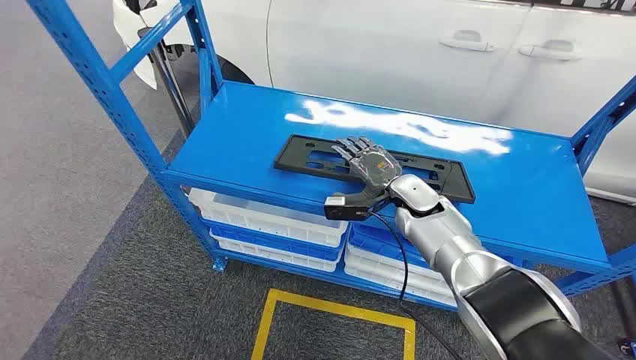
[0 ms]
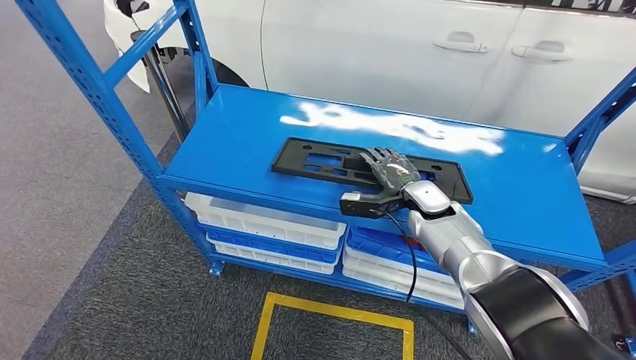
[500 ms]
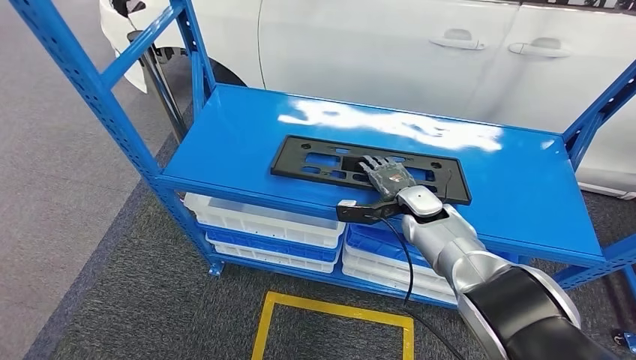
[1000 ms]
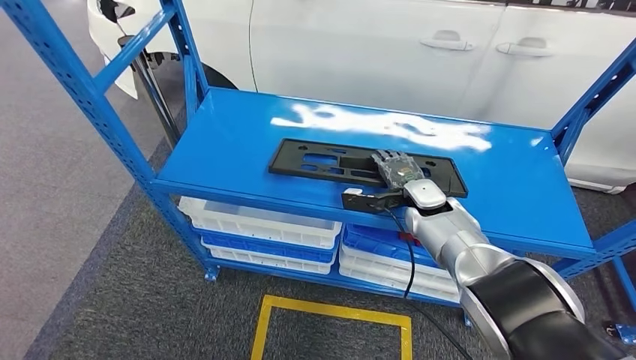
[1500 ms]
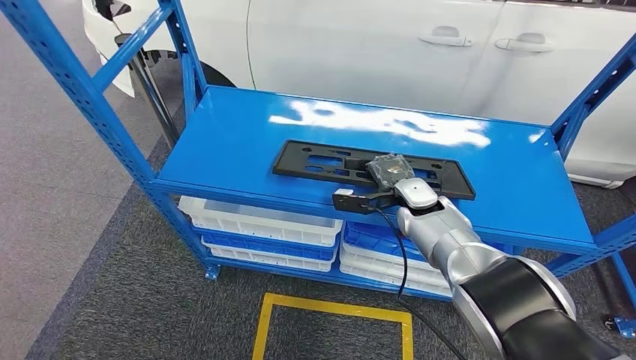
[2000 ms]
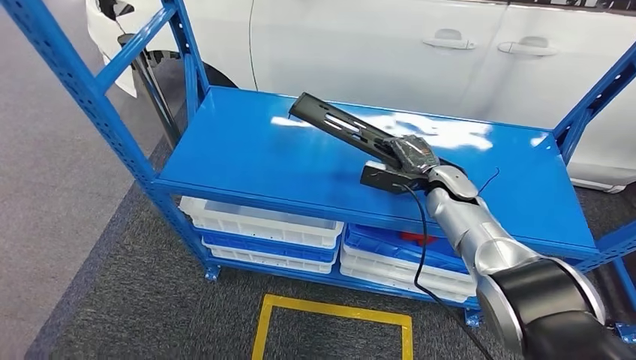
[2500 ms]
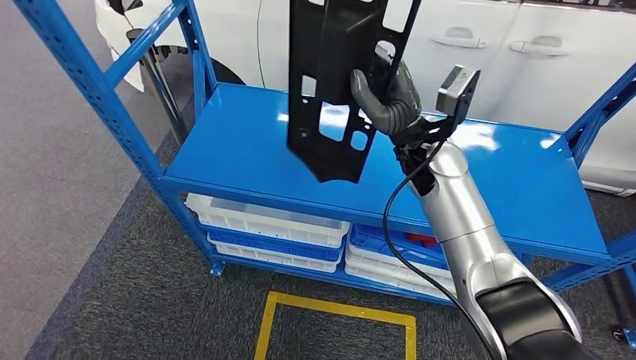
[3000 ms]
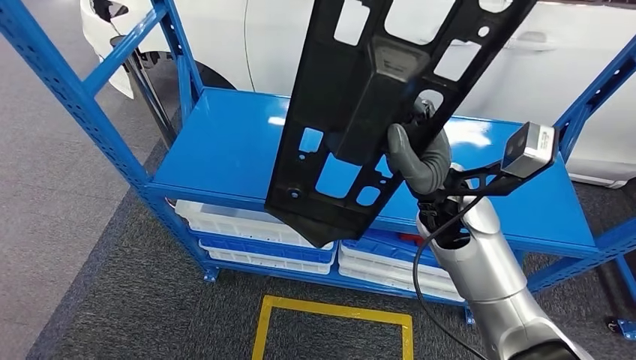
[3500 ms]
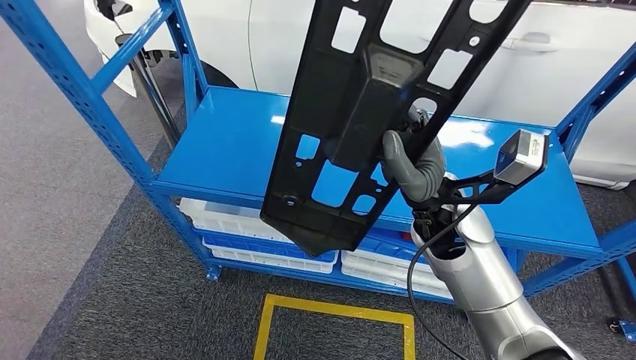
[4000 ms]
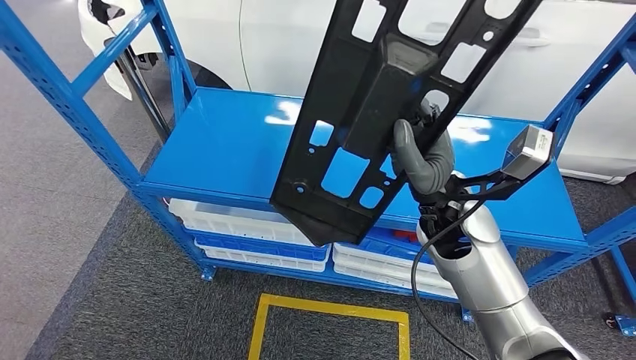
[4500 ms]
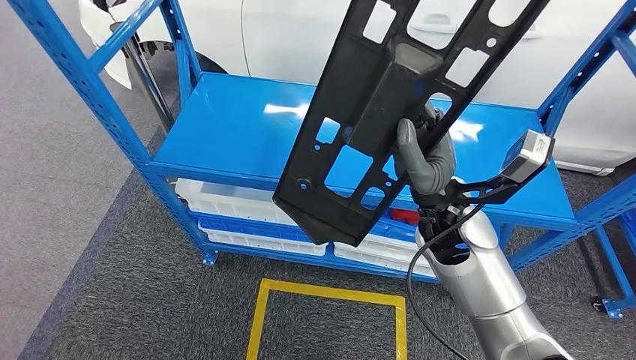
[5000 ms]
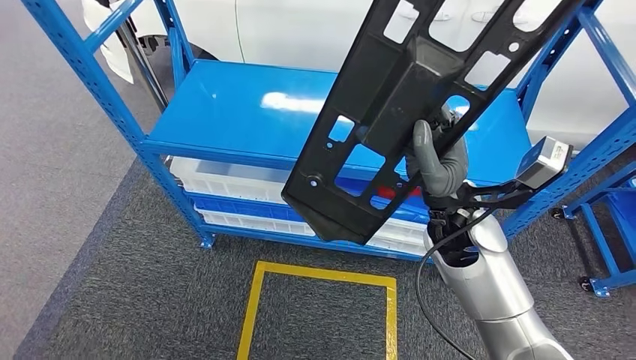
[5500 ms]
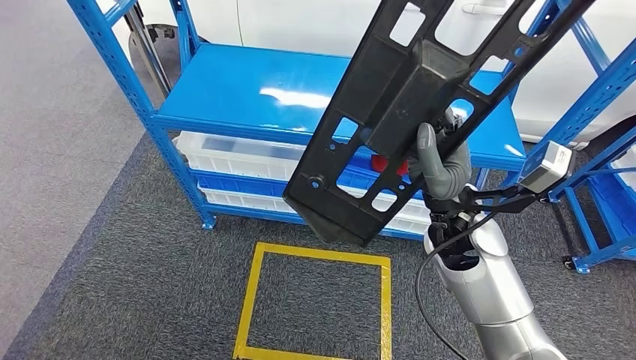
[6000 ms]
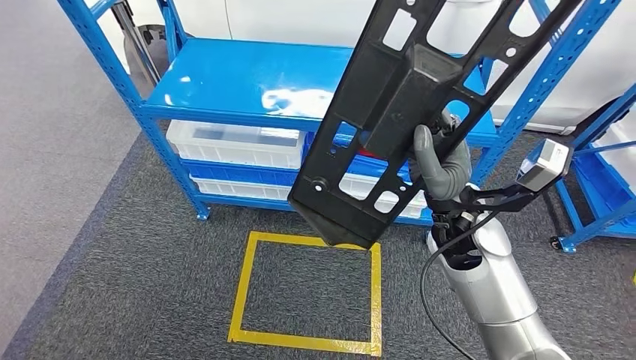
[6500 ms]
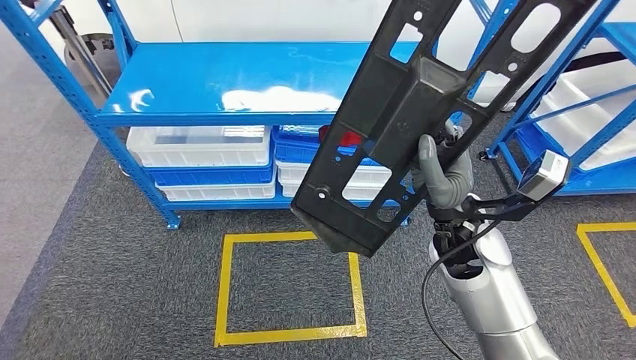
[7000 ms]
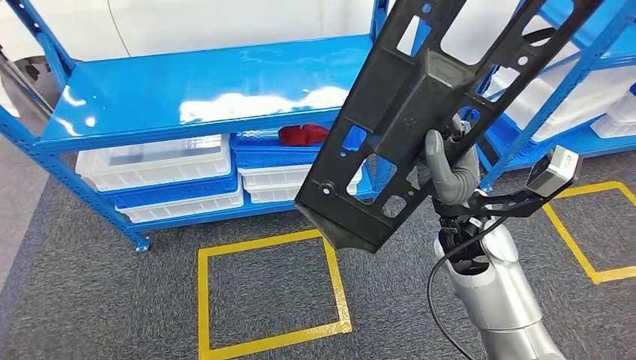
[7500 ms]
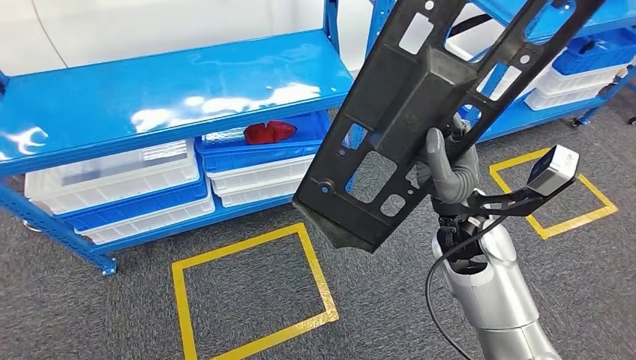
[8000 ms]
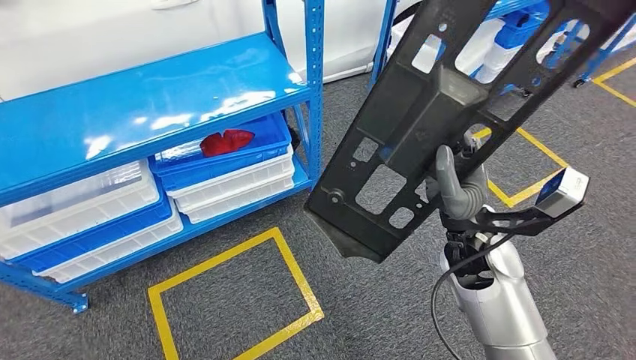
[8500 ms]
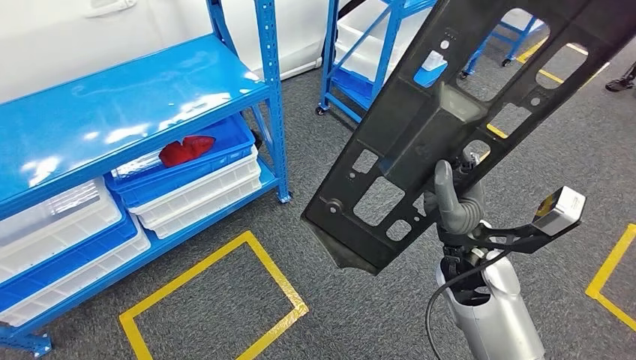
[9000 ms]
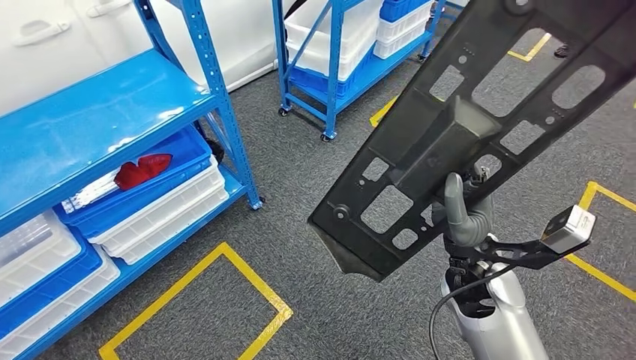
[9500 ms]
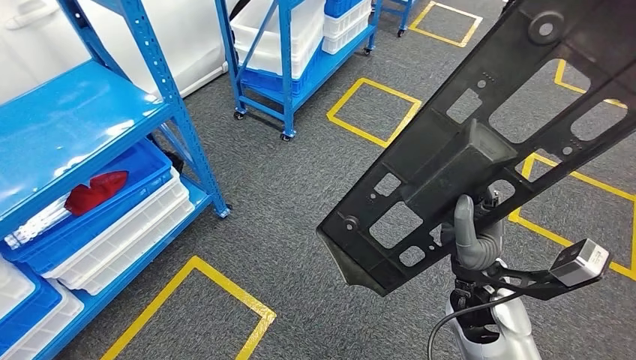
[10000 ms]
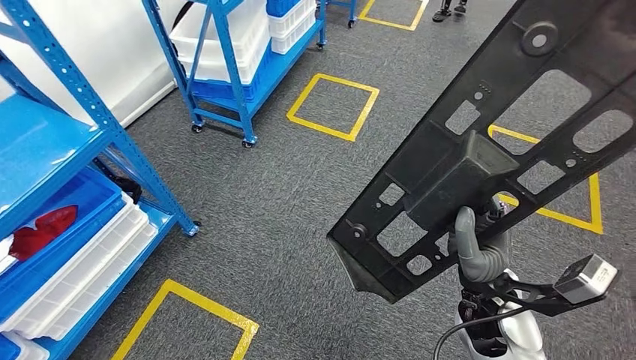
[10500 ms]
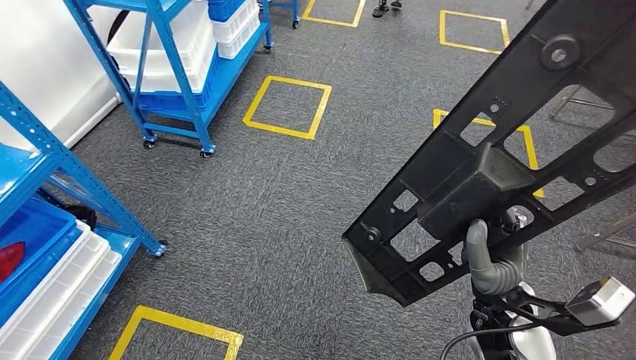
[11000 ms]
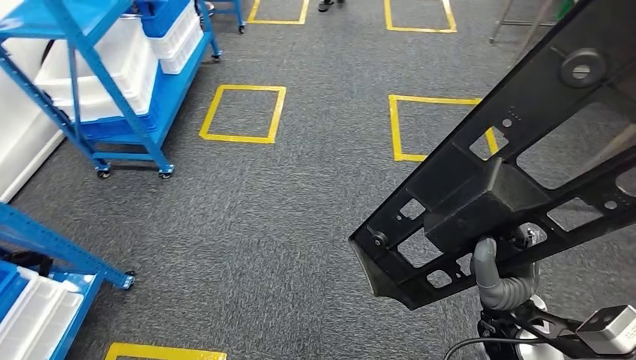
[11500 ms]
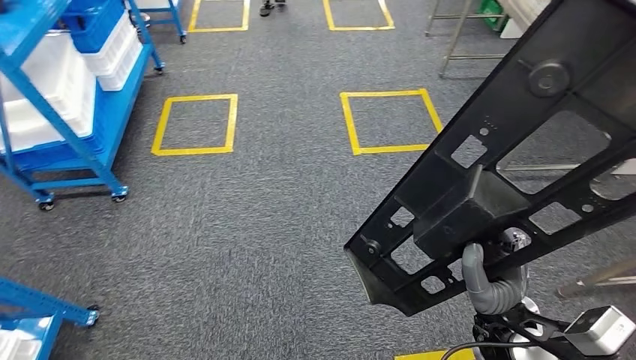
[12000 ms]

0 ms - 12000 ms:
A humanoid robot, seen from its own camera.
Step, 0 ms - 3000 ms: Pick up the large material from the shelf.

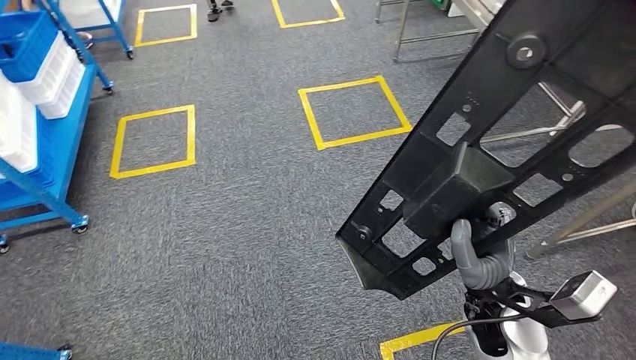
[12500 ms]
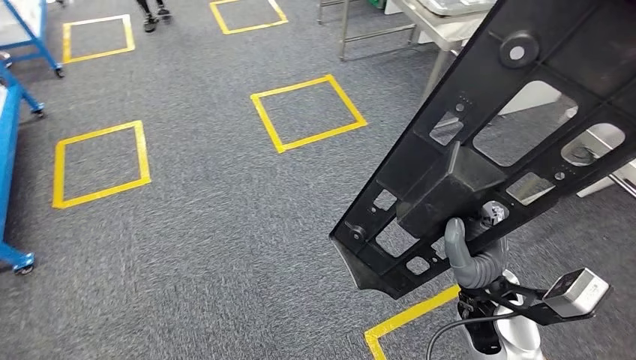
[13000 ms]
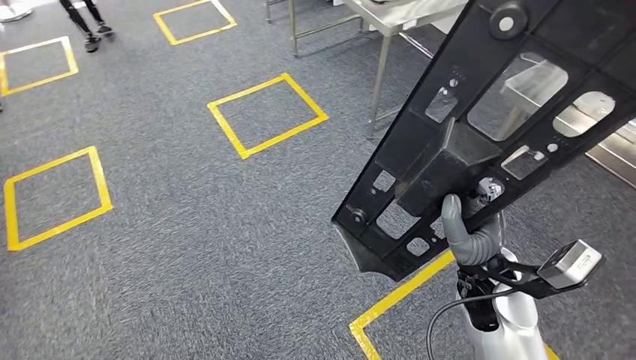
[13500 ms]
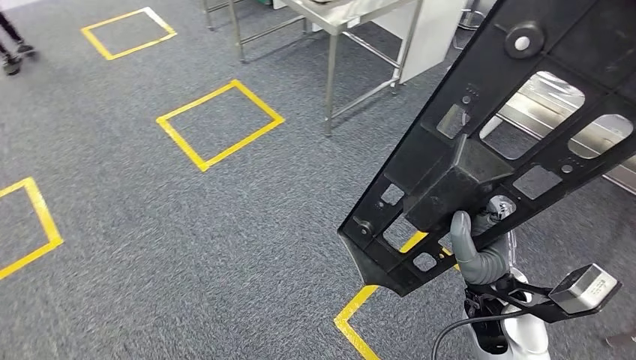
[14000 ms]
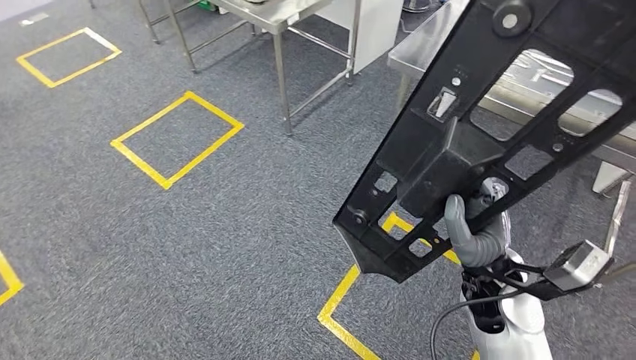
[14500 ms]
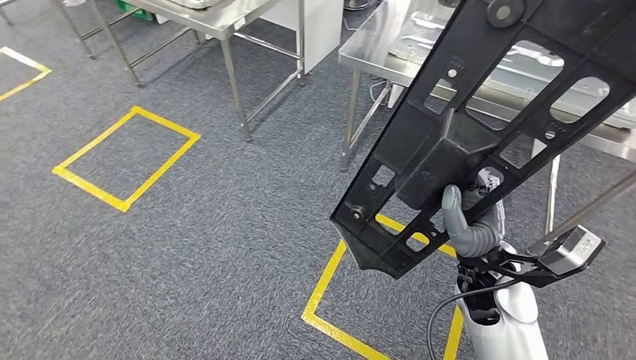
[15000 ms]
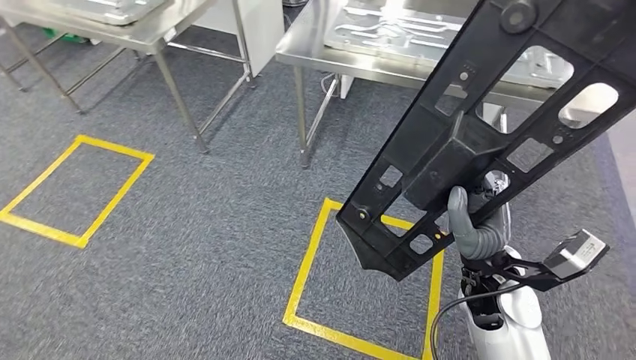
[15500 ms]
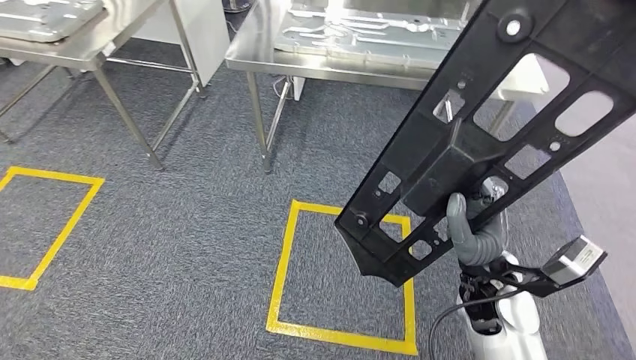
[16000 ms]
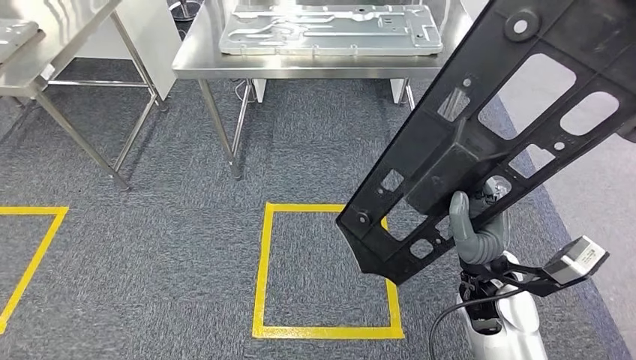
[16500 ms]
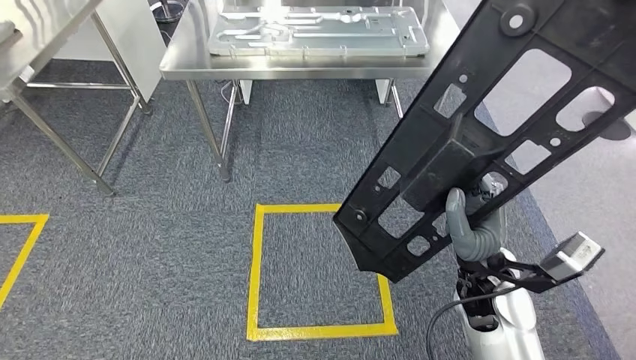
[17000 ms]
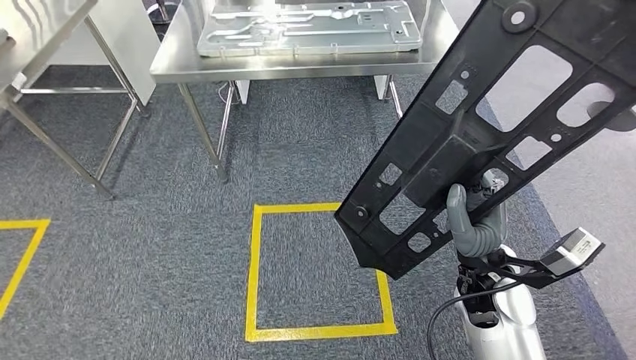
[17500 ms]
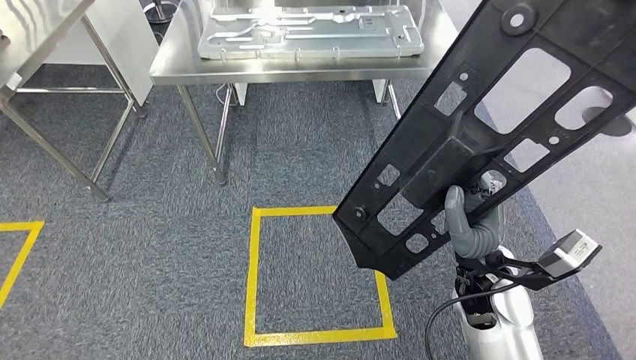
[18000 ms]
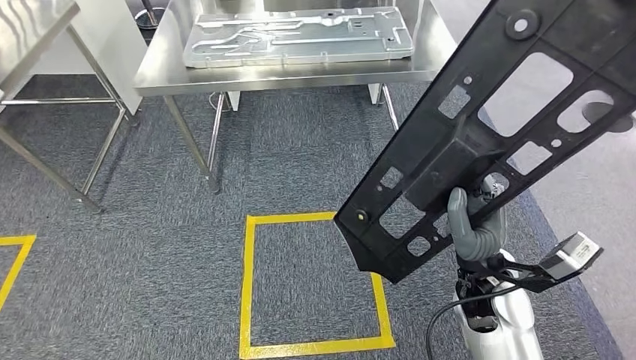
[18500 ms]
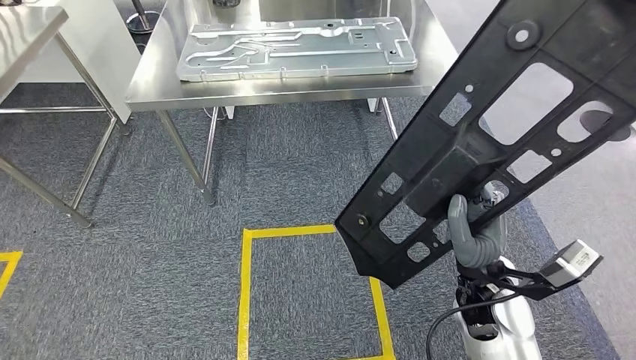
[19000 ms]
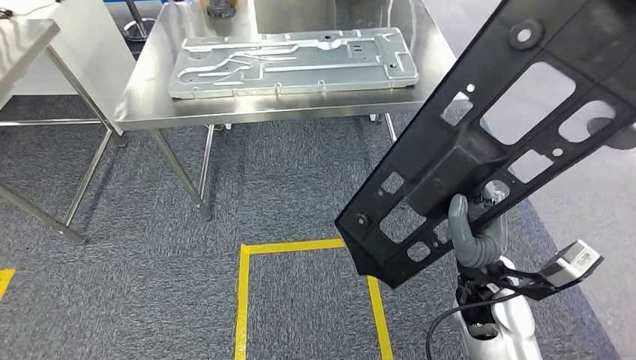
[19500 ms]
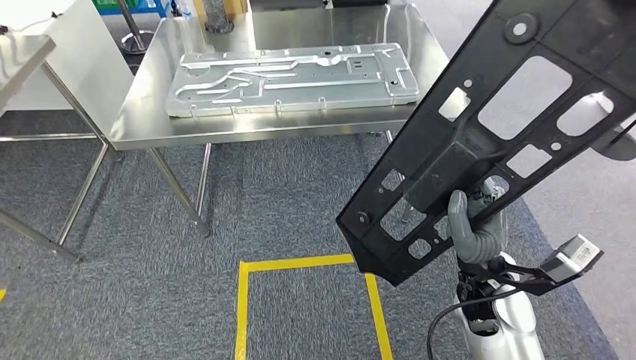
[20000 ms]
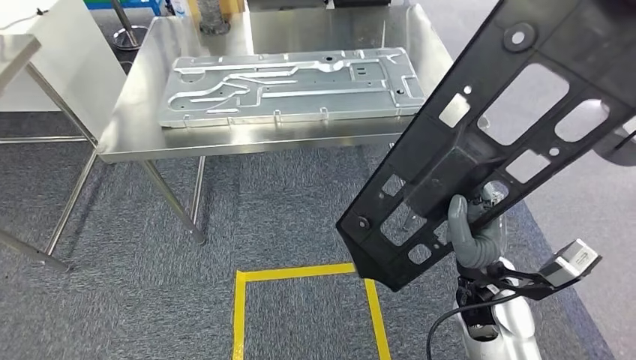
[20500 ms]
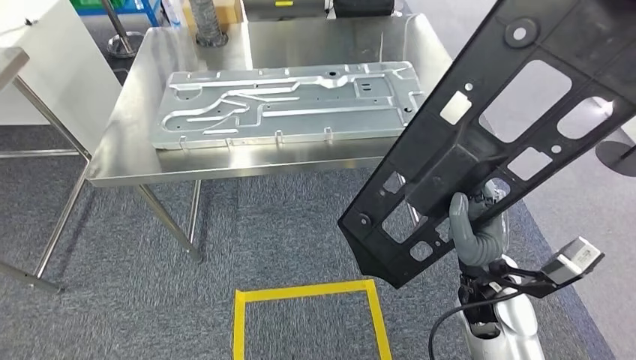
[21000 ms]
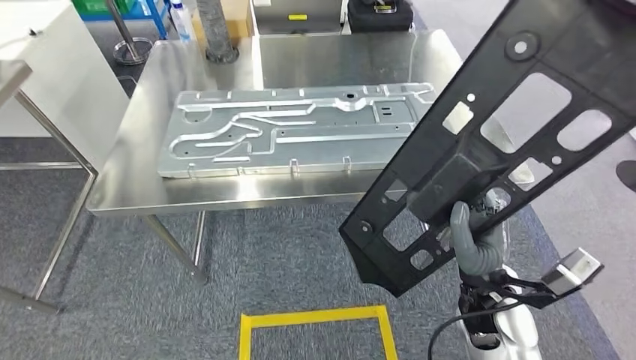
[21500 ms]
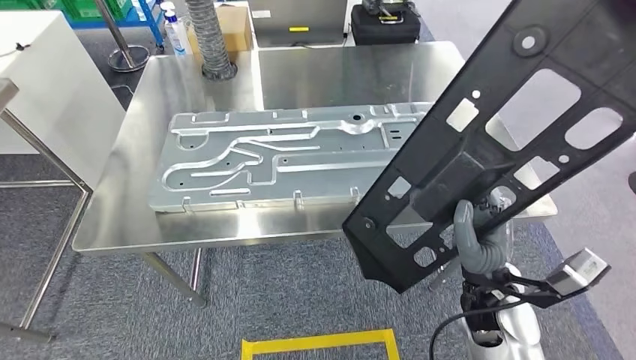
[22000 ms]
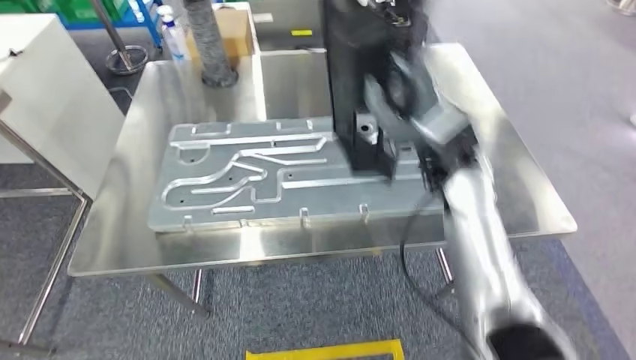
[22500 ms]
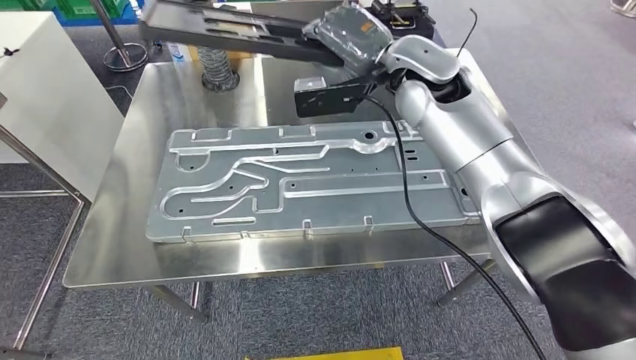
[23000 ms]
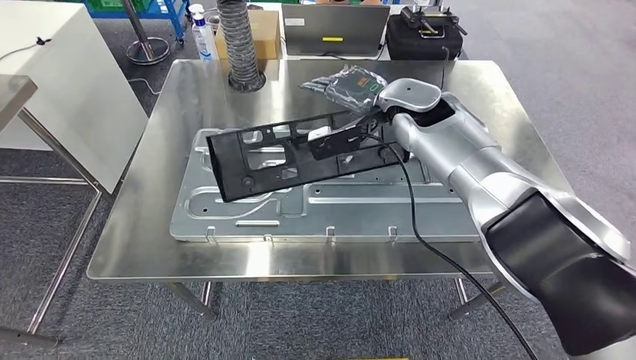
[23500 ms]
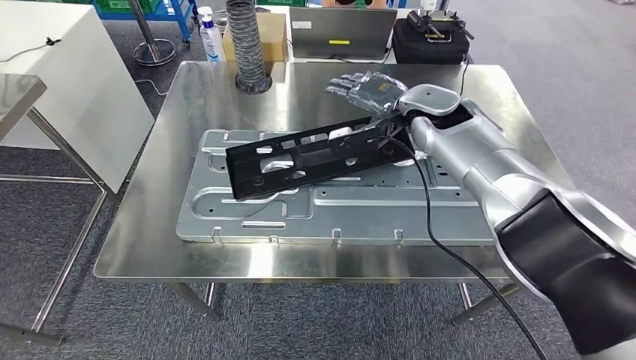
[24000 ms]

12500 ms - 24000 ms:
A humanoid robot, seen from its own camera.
Step, 12500 ms - 19500 ms: Move the large material to the front of the workbench.
